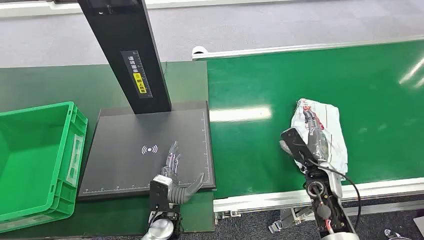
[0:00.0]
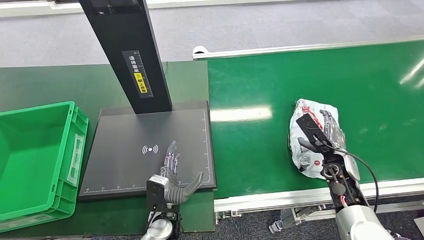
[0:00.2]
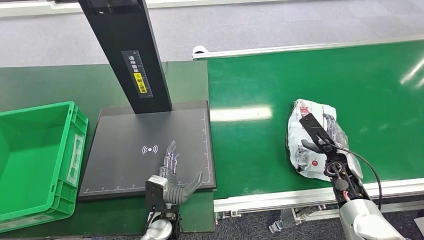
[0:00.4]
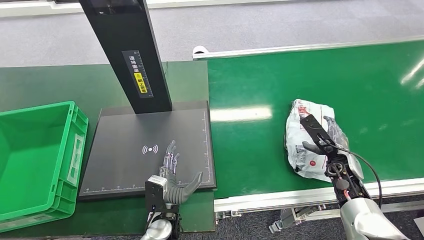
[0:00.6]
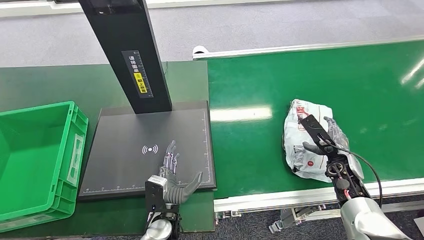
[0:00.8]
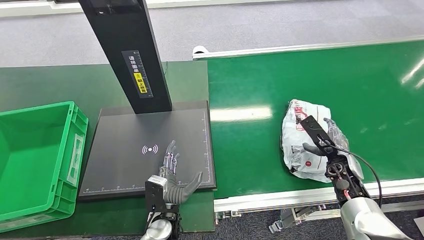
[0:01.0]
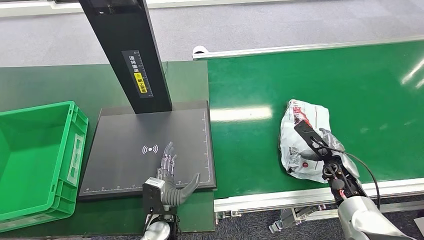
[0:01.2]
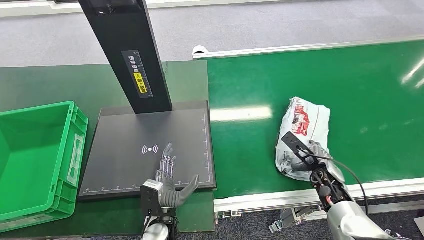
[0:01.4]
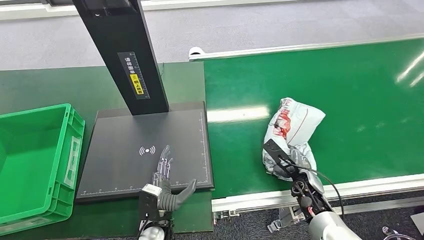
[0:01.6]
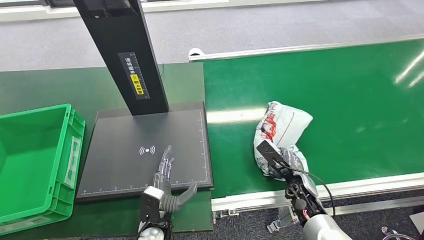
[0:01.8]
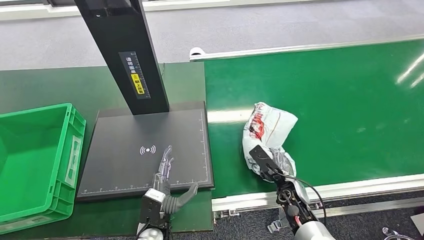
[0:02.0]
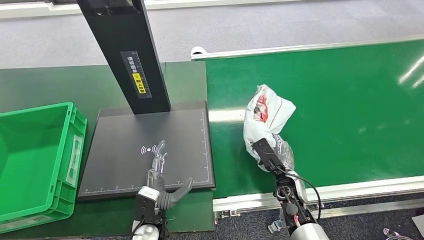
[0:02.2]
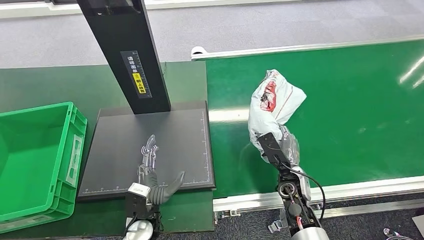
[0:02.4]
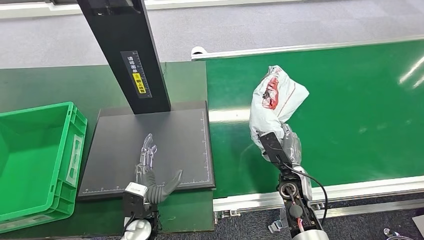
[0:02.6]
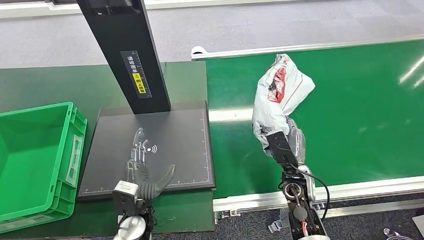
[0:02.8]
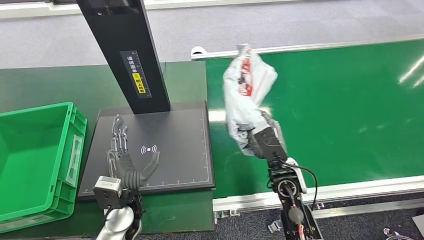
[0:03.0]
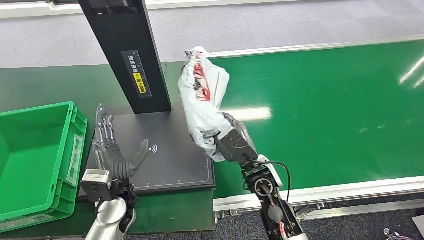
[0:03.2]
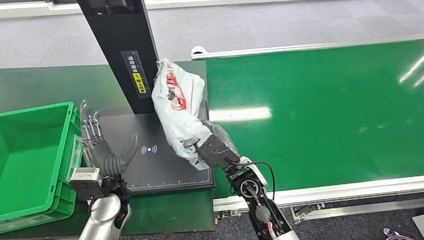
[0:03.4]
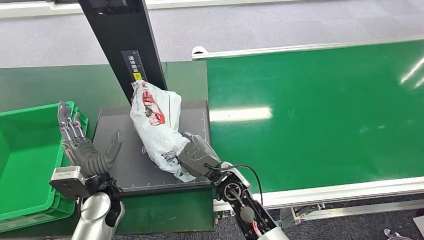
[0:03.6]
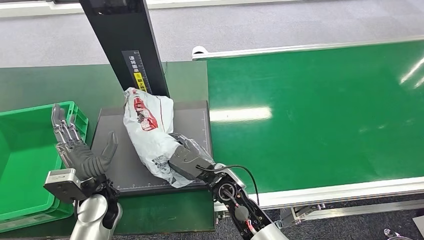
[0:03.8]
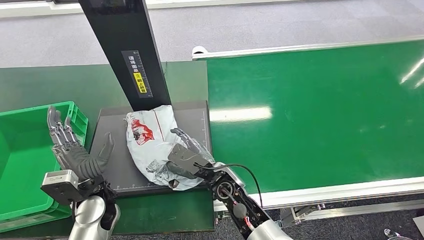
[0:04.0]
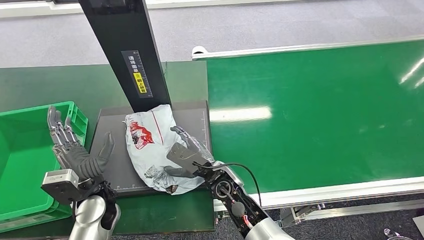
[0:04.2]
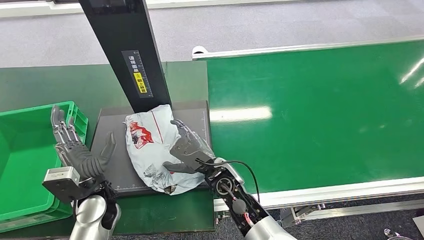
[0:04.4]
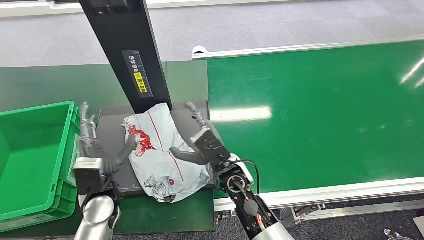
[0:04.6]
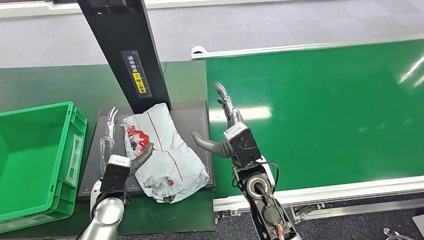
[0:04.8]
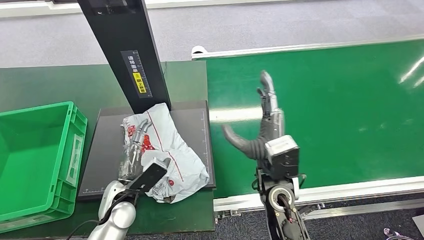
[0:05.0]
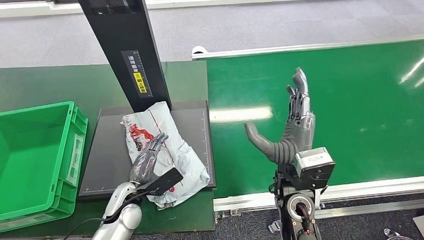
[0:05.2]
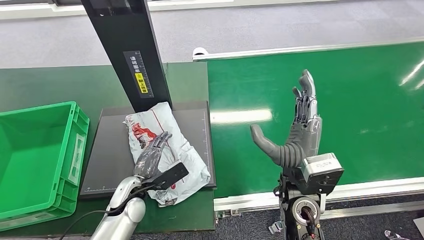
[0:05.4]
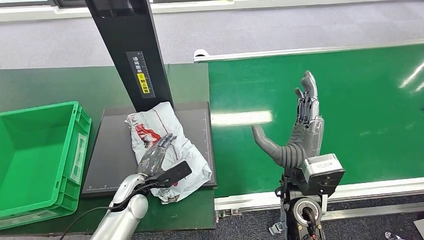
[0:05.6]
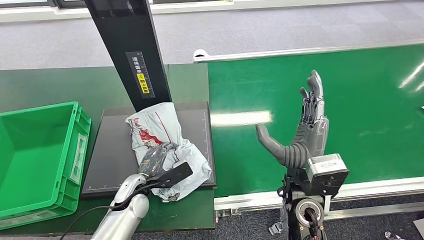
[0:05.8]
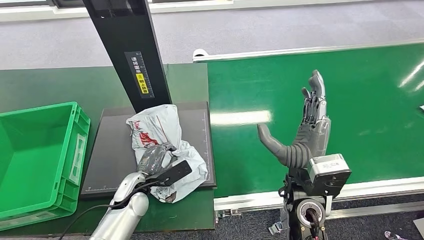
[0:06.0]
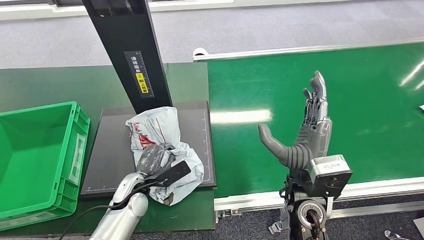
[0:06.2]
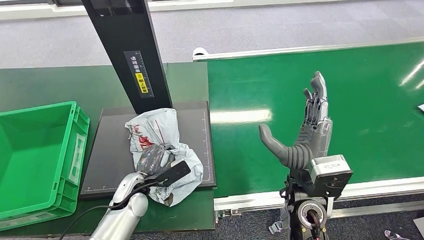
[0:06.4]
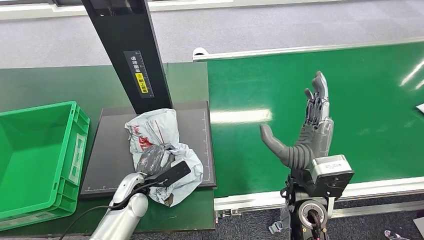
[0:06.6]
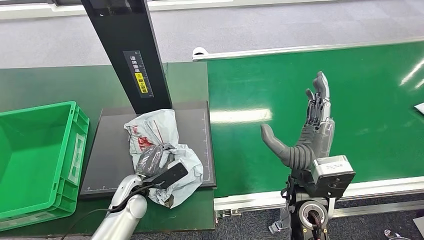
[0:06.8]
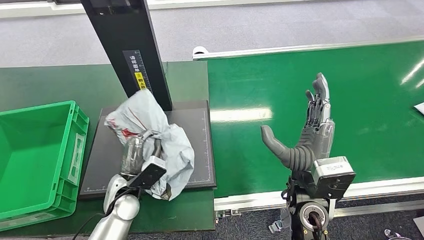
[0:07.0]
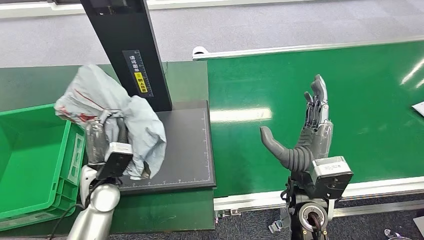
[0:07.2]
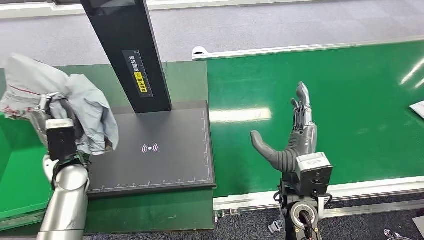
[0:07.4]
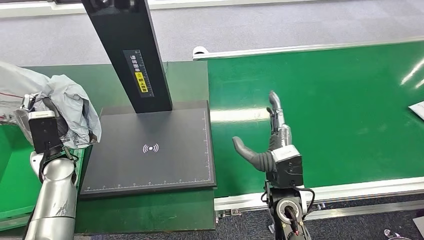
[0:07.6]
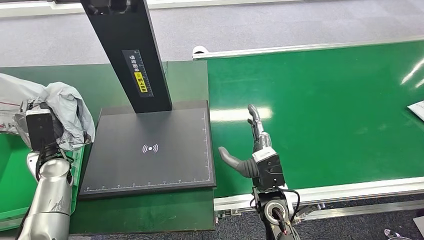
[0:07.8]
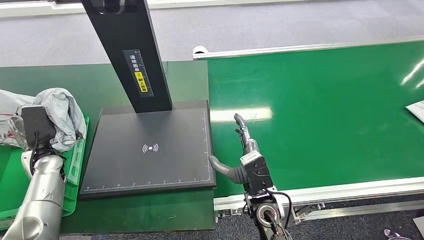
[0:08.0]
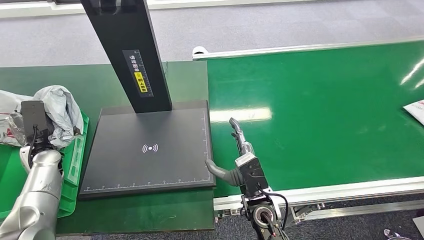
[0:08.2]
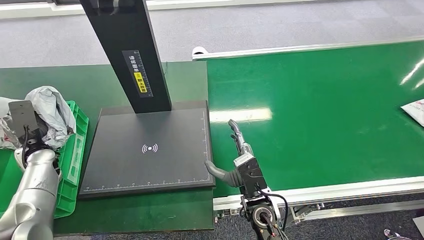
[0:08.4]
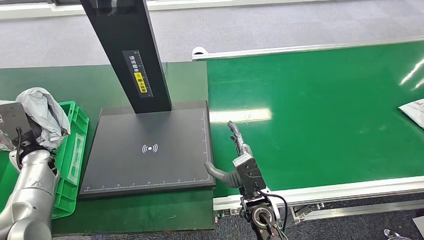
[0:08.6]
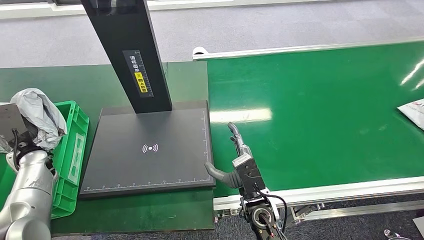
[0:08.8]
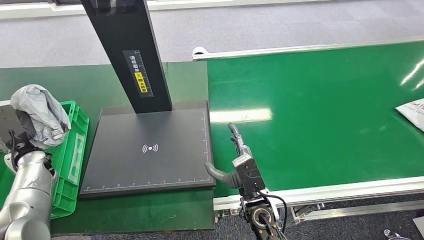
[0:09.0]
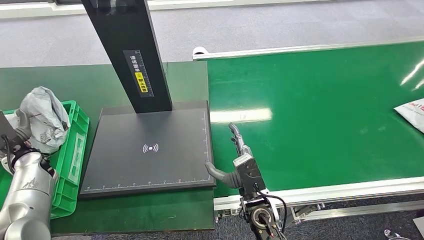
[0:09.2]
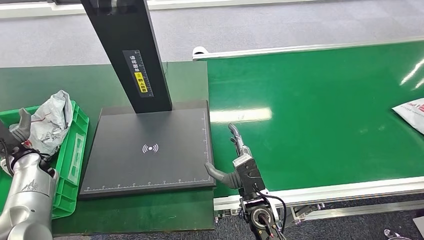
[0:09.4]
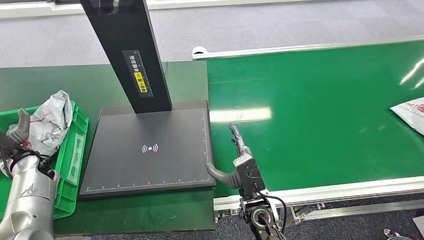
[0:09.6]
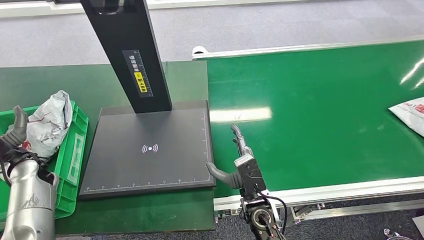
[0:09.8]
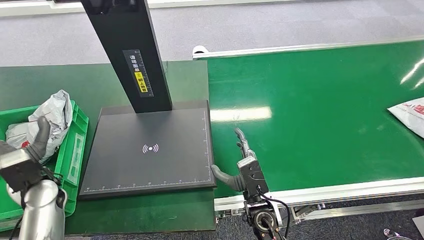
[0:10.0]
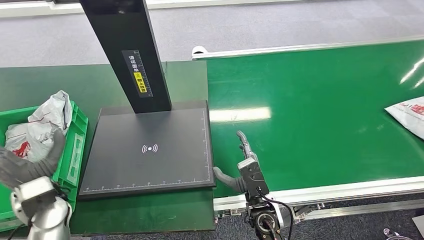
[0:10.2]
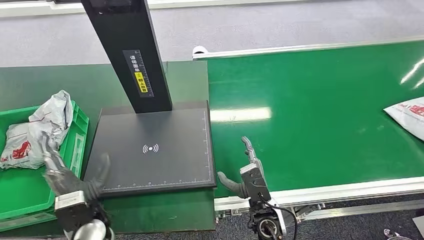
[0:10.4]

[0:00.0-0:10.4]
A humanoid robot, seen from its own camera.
Step, 0:00.0 to 0:02.6: Pick up the package from the conveyor belt.
Step, 0:02.8 to 0:04.8: Place the package onto the inbound machine.
Step, 0:05.0 to 0:07.2: Pick up the package from the inbound machine.
Step, 0:07.4 to 0:10.2: Place the package into the parcel locker.
0:09.0 to 0:10.4: The left hand heads to the right and backward, covering some 25 cm.
